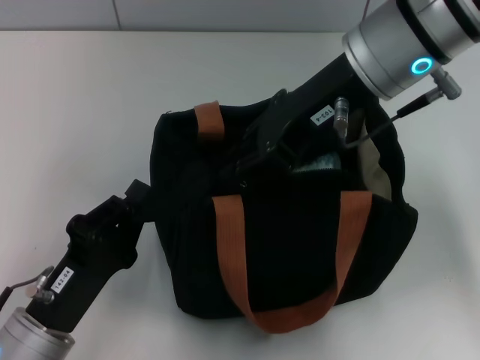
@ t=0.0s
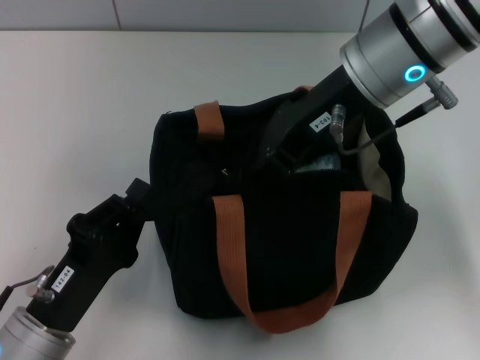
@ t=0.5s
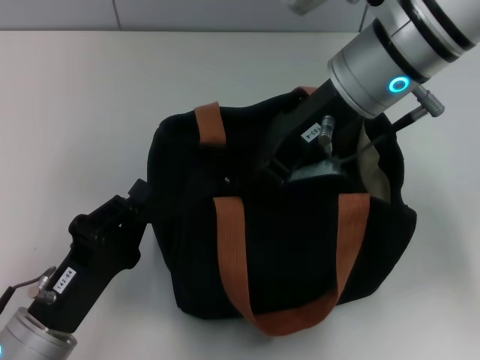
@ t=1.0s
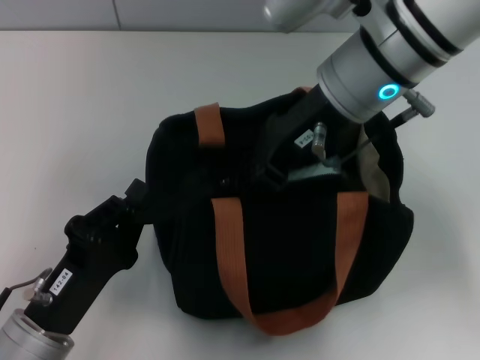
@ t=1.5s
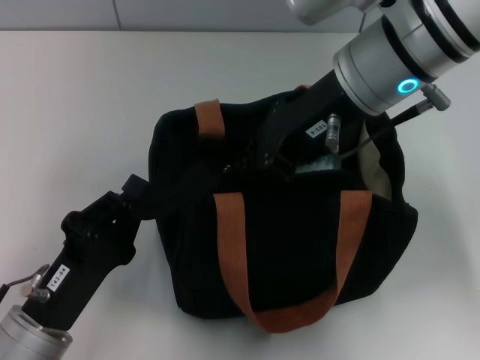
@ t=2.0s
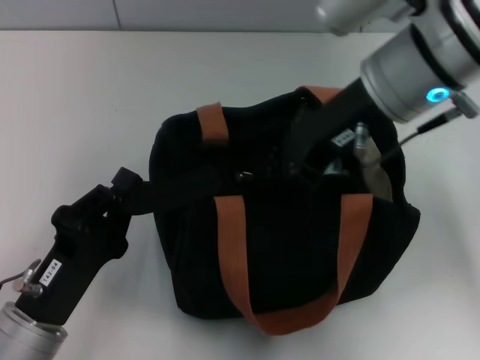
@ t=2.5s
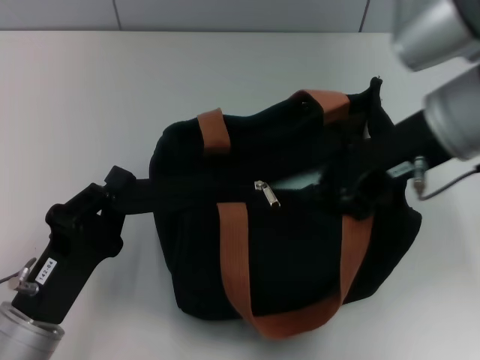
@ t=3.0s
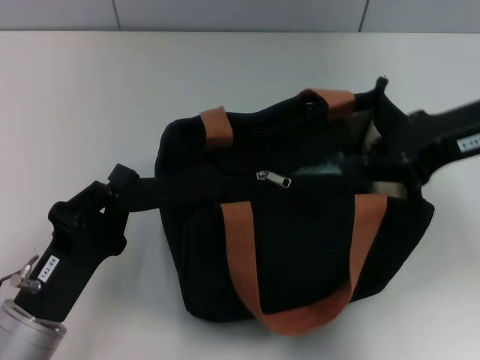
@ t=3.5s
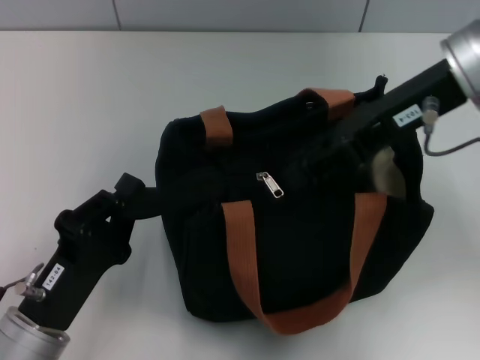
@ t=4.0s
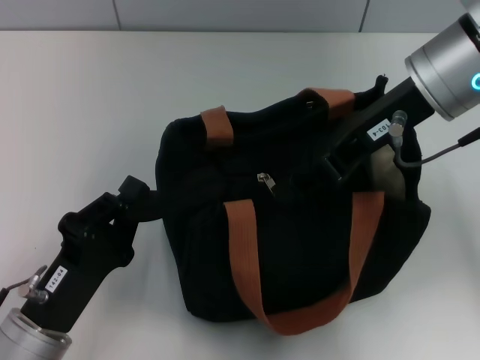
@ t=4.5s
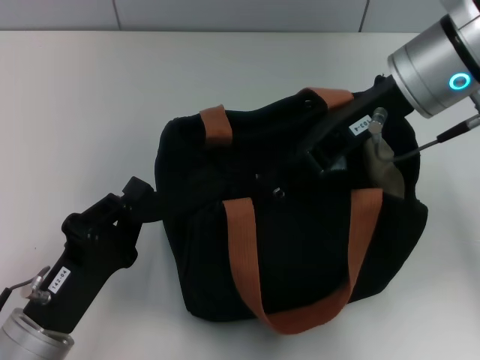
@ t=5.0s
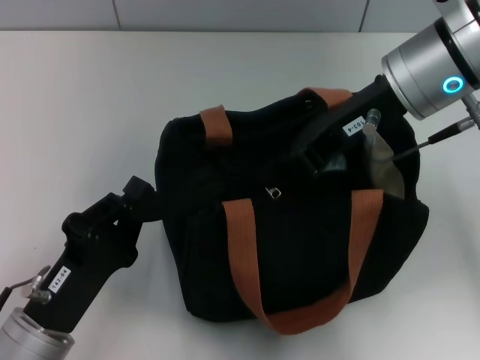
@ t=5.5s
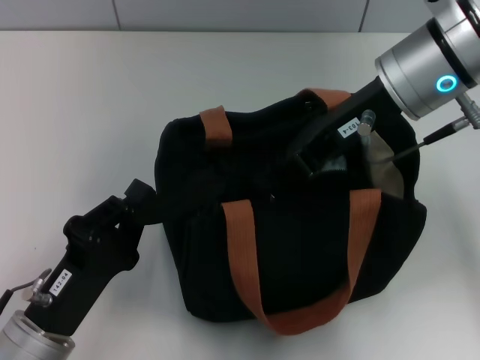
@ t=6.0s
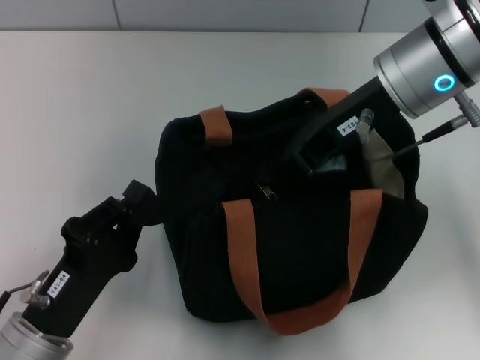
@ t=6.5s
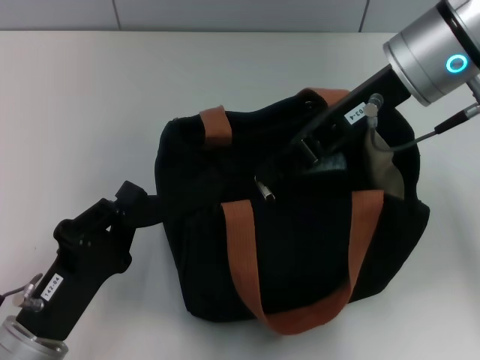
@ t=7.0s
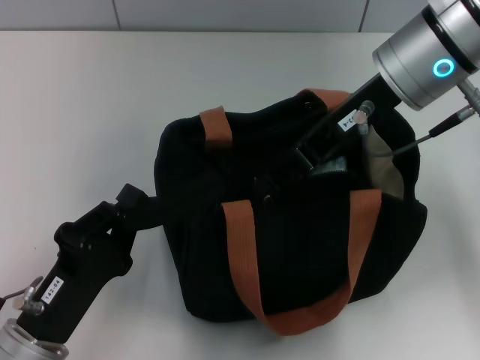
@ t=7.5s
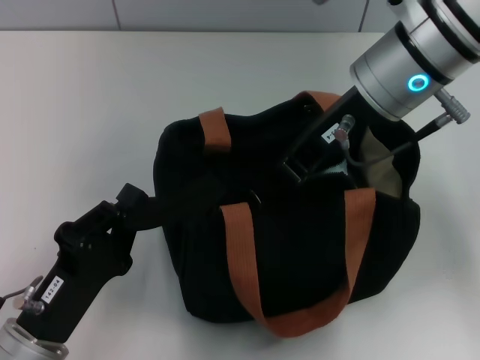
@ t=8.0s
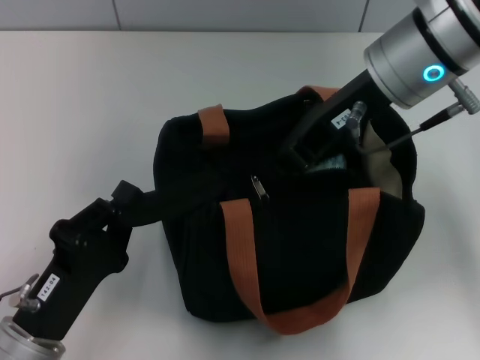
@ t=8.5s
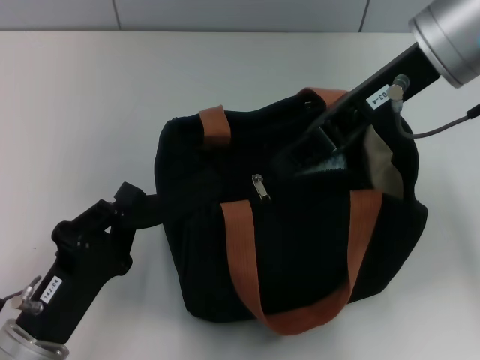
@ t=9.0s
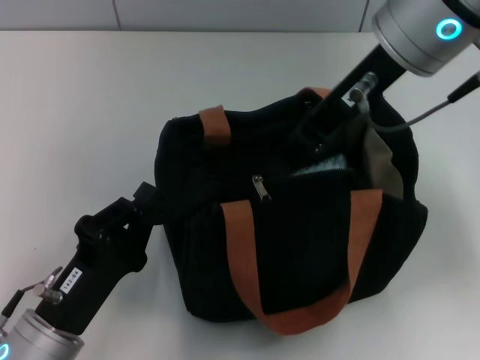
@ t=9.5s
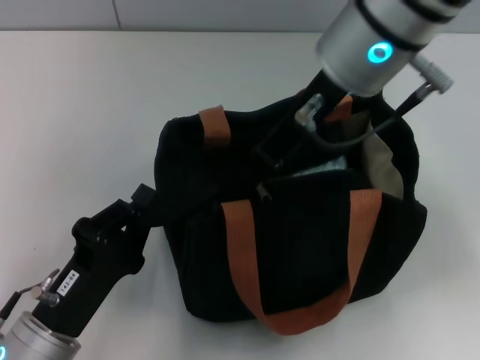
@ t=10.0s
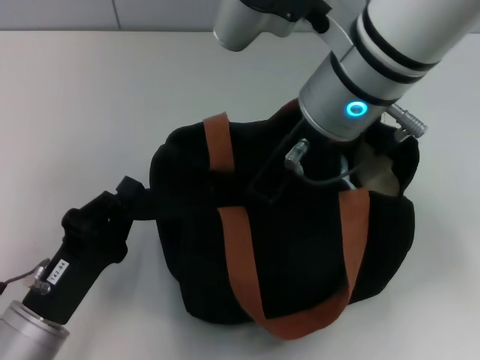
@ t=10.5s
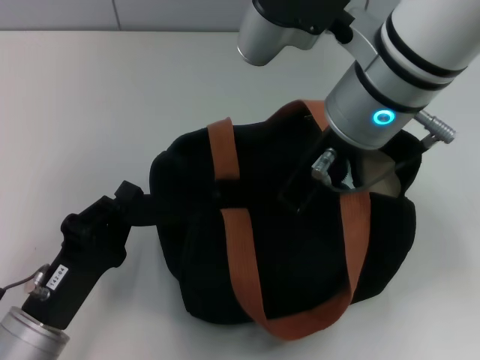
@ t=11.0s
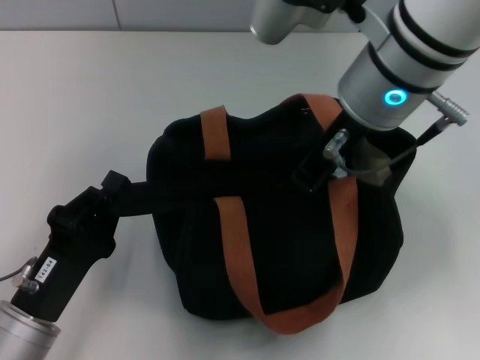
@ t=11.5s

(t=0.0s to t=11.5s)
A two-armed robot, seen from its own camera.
t=0.0s - t=2.0s: The grippers make only small movements.
t=2.0s - t=4.0s: The right gripper goes approximately 5 cm to the right.
t=4.0s - t=7.5s: There are only small adjustments of the grippers.
t=7.5s - t=9.5s: The right gripper moves upward, approximately 5 cm.
t=9.5s - t=11.5s: The right gripper is displaced downward by roughly 5 cm.

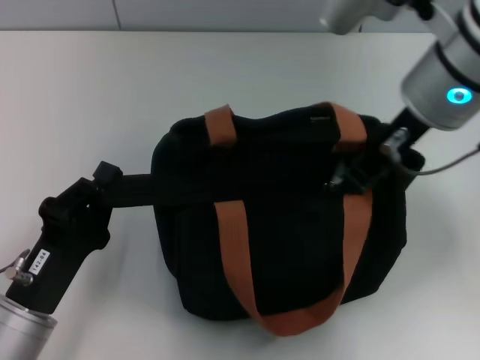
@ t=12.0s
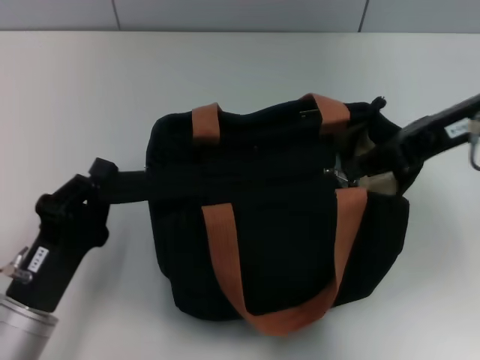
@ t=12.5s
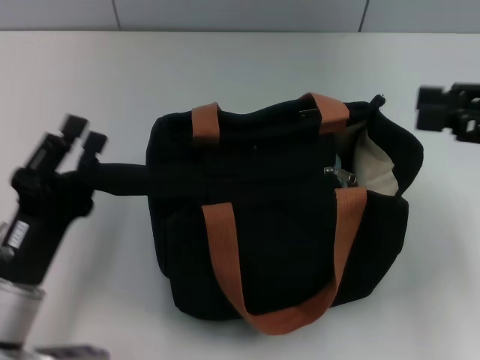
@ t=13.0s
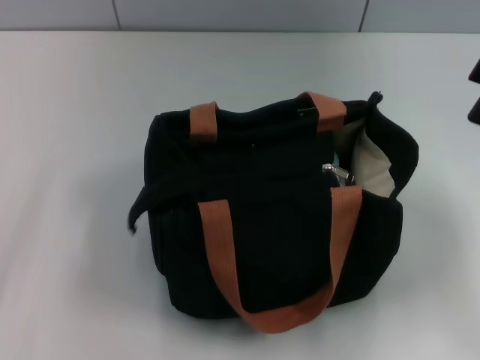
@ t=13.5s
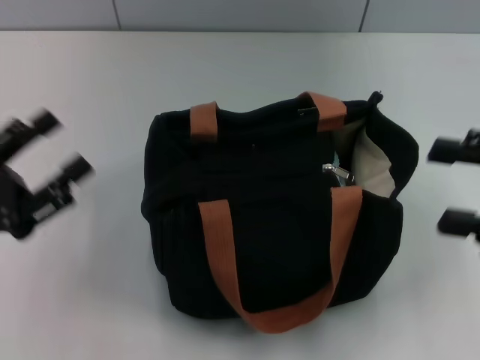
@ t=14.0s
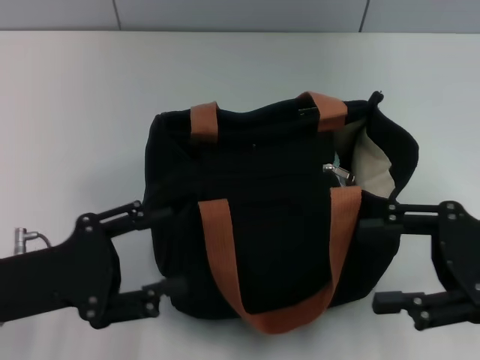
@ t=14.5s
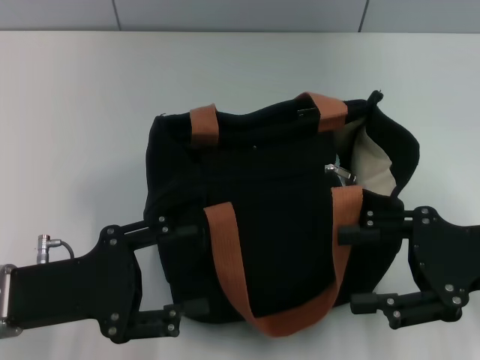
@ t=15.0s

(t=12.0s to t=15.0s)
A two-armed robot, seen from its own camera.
t=12.0s - t=13.5s: The left gripper heads to the left, covering some 5 cm, and opens its fingers. Meanwhile the right gripper heads to the right and backward, covering about 20 cm, and opens its fingers.
t=13.5s - t=15.0s: The right gripper moves to the left and downward, about 10 cm.

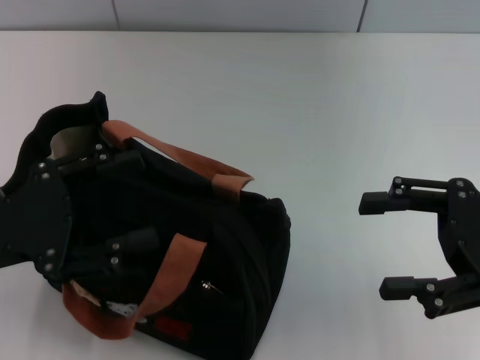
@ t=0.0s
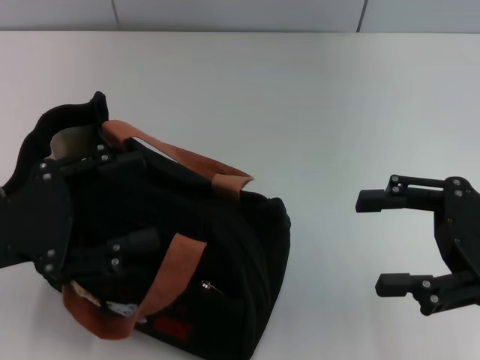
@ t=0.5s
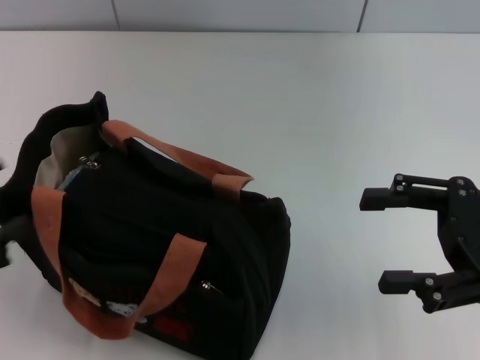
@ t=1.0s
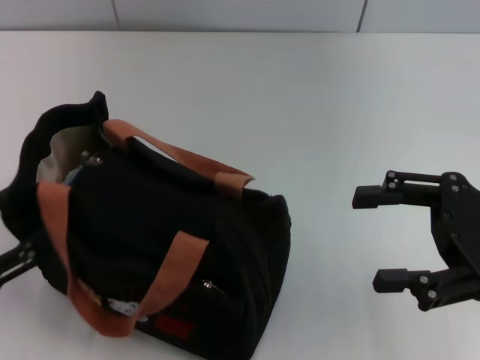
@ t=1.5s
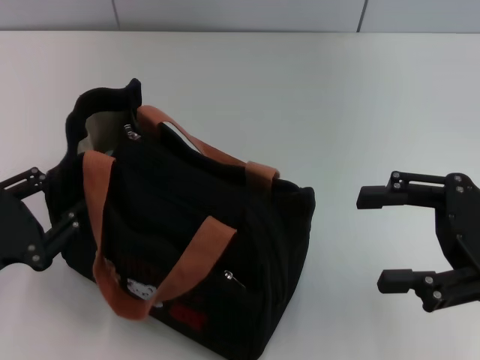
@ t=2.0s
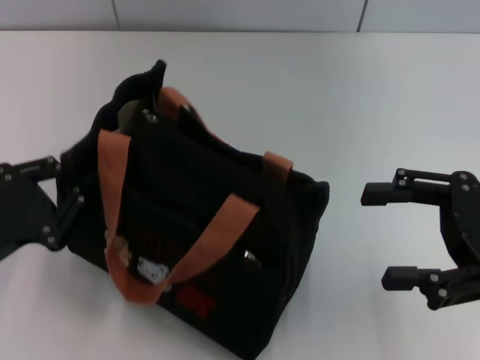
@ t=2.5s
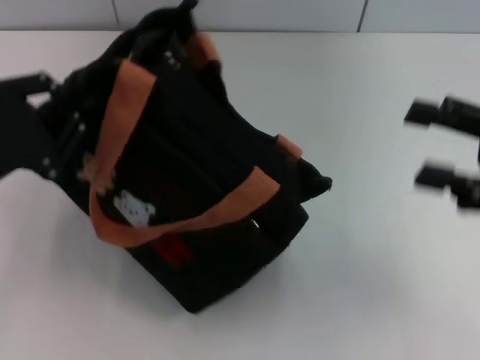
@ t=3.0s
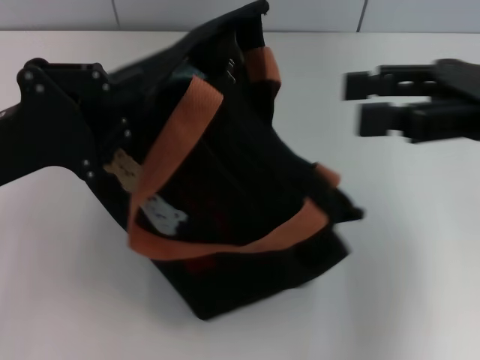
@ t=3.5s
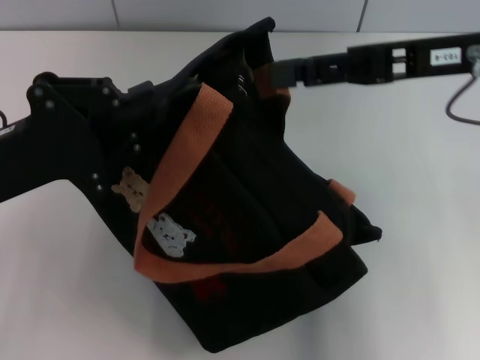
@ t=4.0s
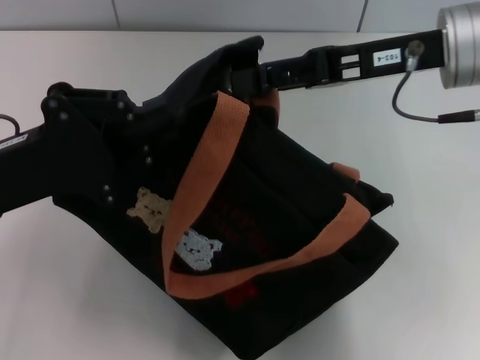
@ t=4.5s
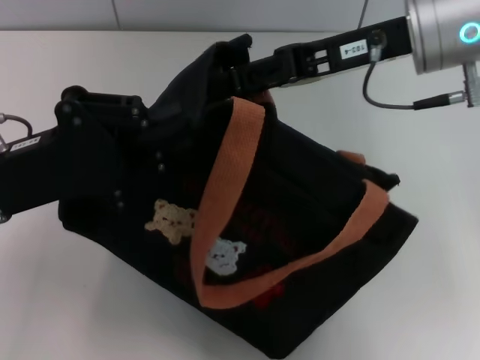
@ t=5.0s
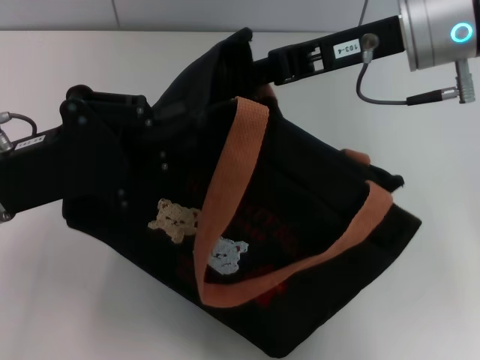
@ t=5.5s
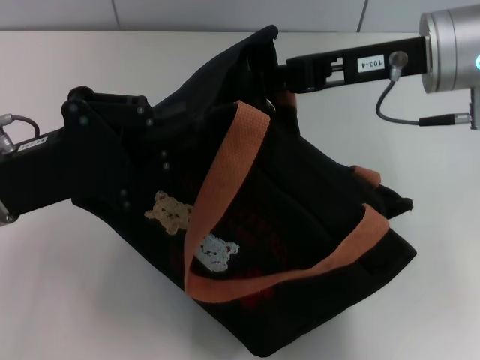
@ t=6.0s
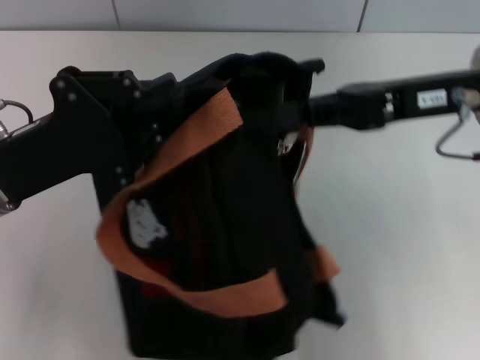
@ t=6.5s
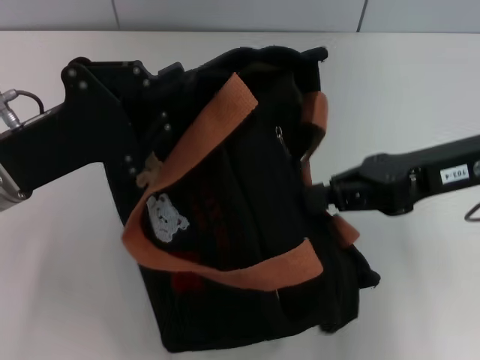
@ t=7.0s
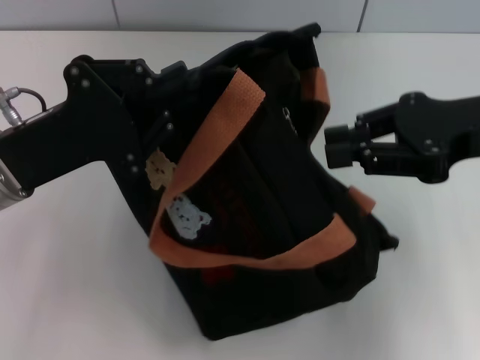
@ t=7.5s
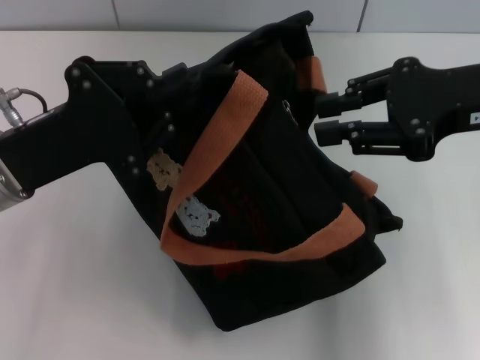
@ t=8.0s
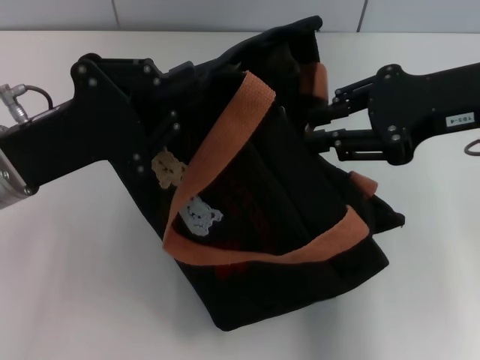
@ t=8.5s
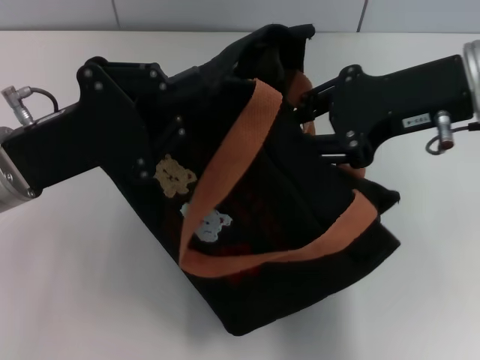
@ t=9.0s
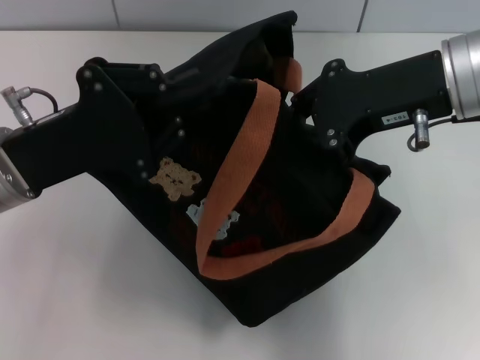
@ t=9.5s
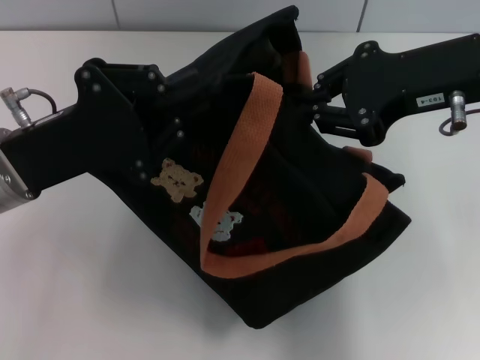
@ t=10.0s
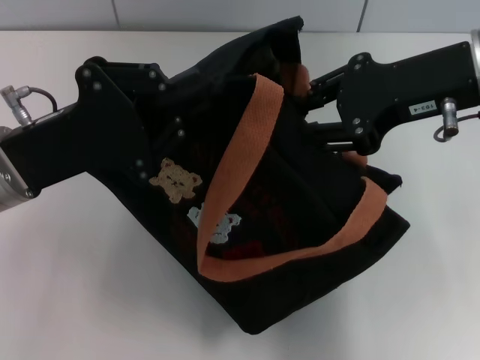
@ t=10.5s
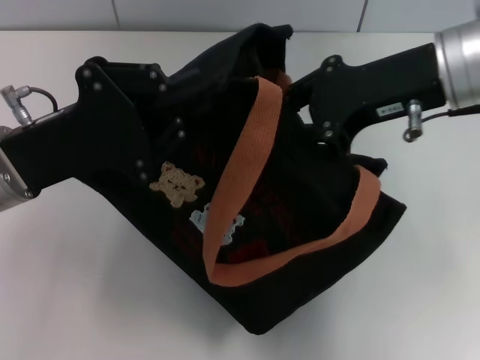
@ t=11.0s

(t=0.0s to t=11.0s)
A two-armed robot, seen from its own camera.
t=0.0s - t=2.0s: The left gripper goes roughly 5 cm downward.
t=2.0s - t=3.5s: Both grippers move upward and forward, about 10 cm. The left gripper closes.
t=3.5s - t=5.5s: The right gripper travels to the left and forward by about 10 cm, and closes.
t=5.5s - t=7.5s: The right gripper travels to the right and backward by some 10 cm.
t=7.5s - t=9.0s: The right gripper shifts some 5 cm to the left.
t=9.0s - t=11.0s: The right gripper closes, then reopens.
